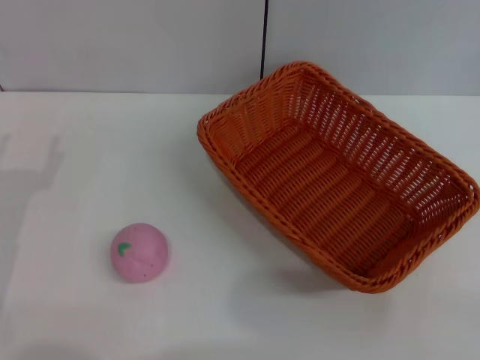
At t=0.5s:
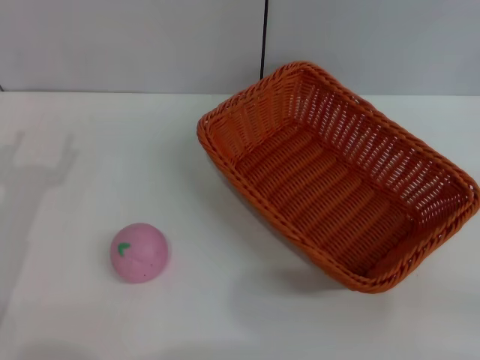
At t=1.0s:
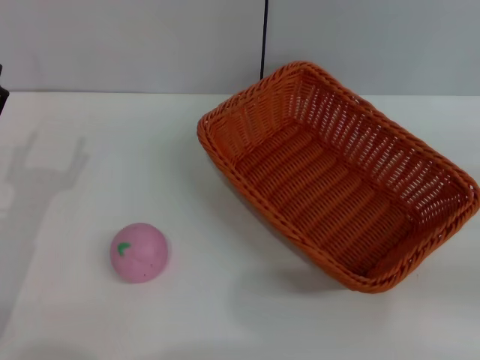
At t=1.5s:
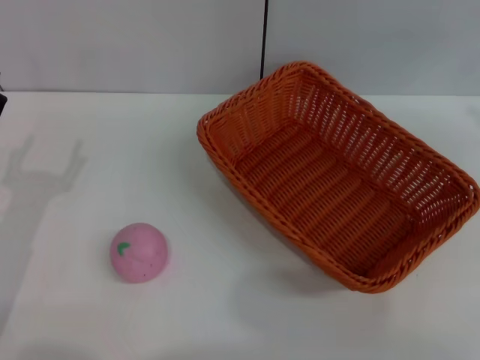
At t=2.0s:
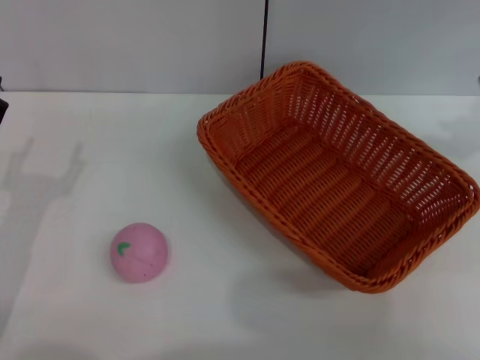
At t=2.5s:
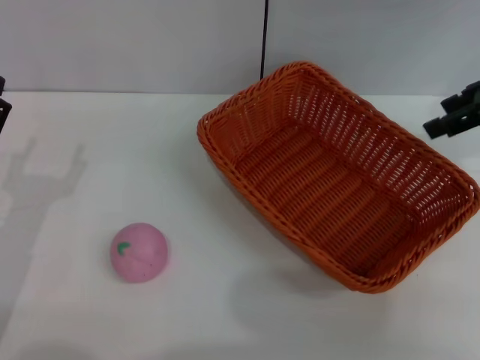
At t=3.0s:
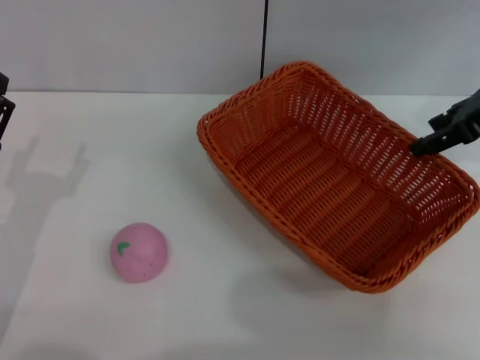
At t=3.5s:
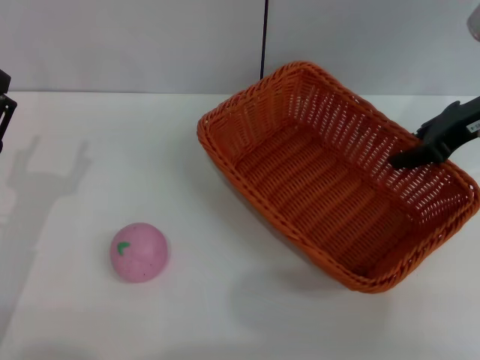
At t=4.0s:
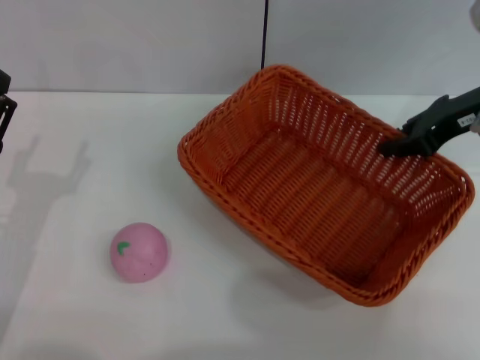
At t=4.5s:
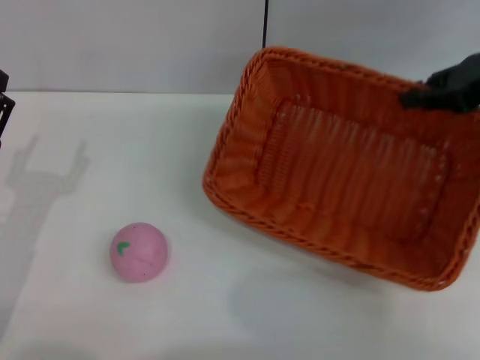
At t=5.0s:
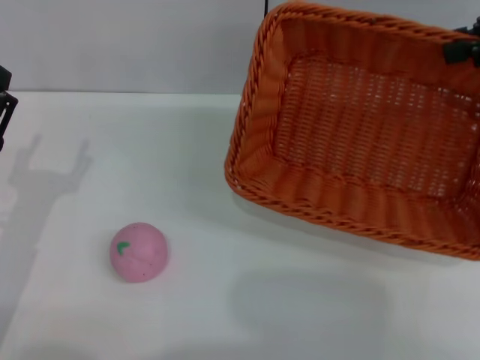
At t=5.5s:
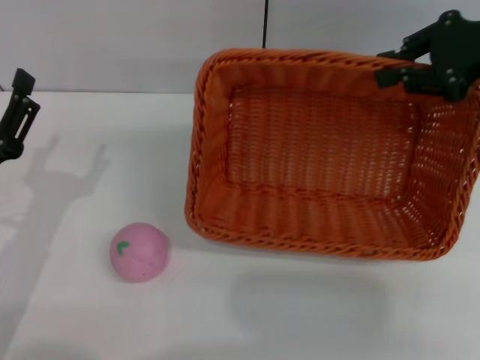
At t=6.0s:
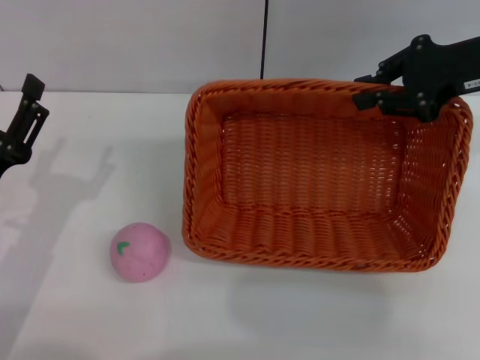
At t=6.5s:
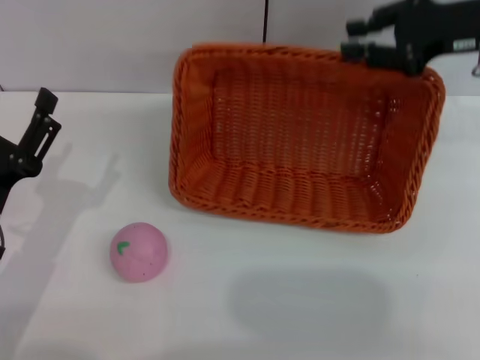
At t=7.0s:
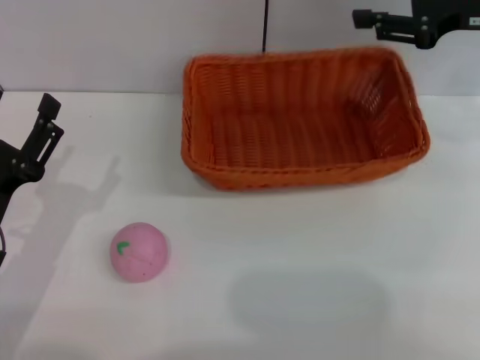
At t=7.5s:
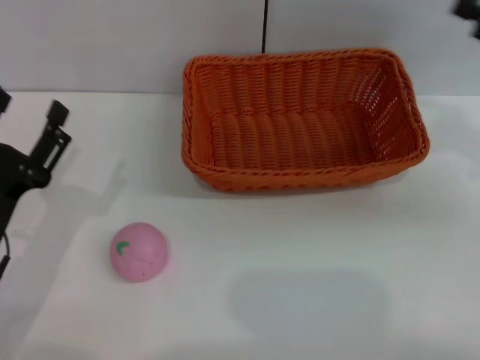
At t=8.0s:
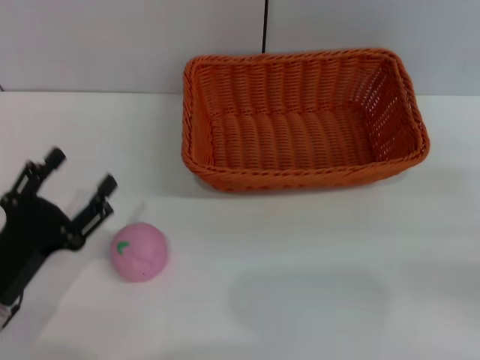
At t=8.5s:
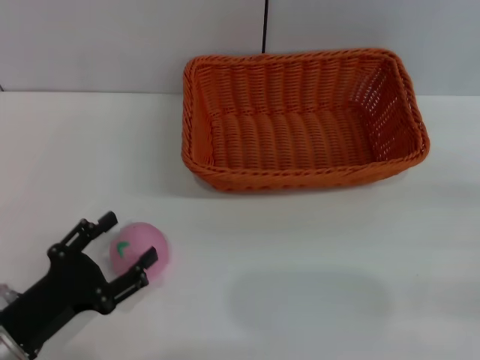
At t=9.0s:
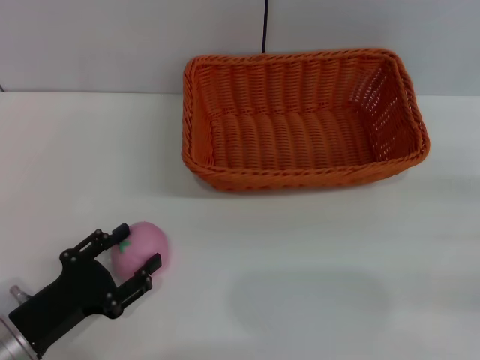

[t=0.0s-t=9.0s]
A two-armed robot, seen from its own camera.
Step, t=0.0s to t=4.5s: Pick up the light basket with the right gripper.
Step, t=5.0s to t=7.0s: Place the light basket in the center of view with the right gripper.
t=0.0s to t=2.0s: The right gripper moves upward and forward, some 30 cm.
t=2.0s to t=4.5s: The right gripper goes approximately 5 cm downward, and closes its fingers.
t=4.5s to t=7.0s: The right gripper opens up.
t=7.0s to t=9.0s: The right gripper heads backward, downward and to the right, covering some 25 cm. Meanwhile the left gripper moves approximately 5 cm.

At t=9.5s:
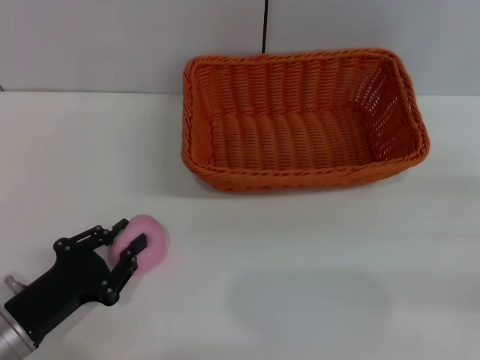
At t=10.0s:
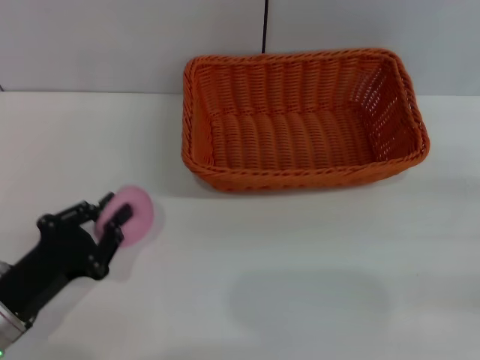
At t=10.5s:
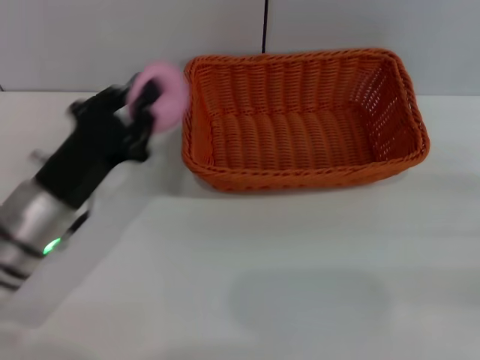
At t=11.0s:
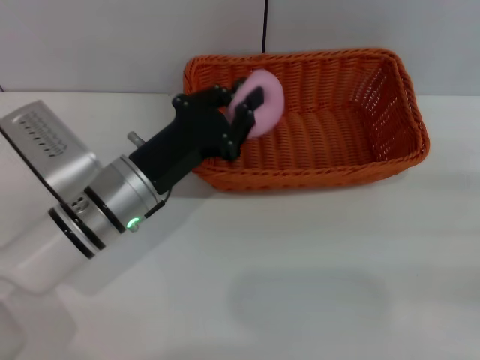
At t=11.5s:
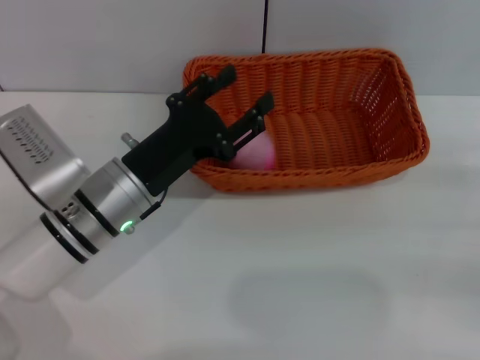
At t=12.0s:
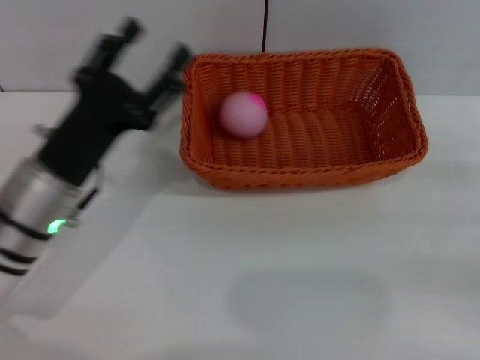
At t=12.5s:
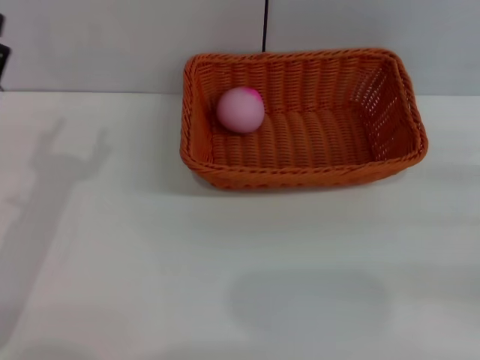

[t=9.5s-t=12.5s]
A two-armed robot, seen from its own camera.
Step, t=10.5s to t=11.5s: Place the peach into the basket with the left gripper.
t=9.5s to t=11.0s: The left gripper moves forward, to the right and upward, about 20 cm.
t=11.0s to t=12.5s: The left gripper heads to the left and backward, covering approximately 15 cm, and opens.

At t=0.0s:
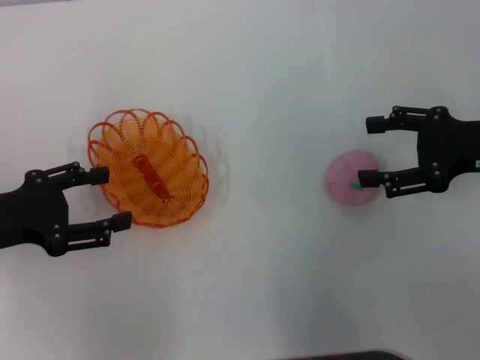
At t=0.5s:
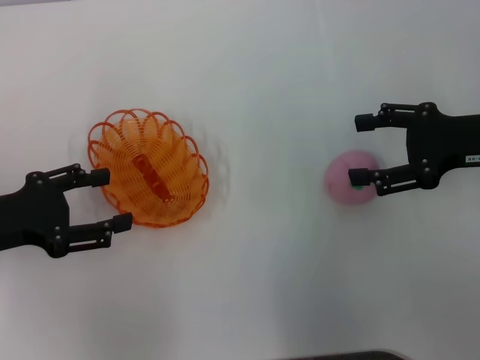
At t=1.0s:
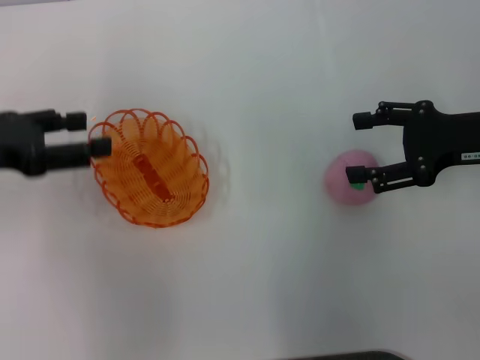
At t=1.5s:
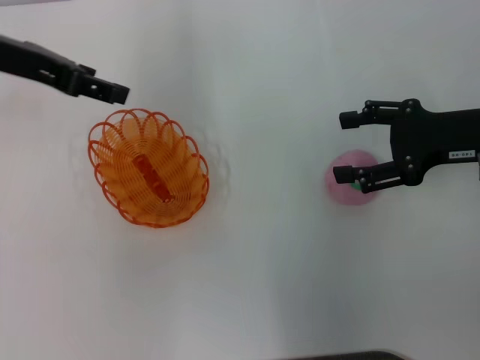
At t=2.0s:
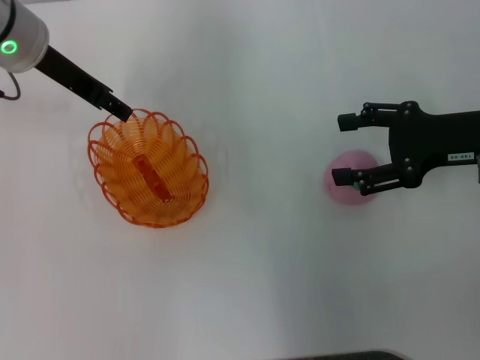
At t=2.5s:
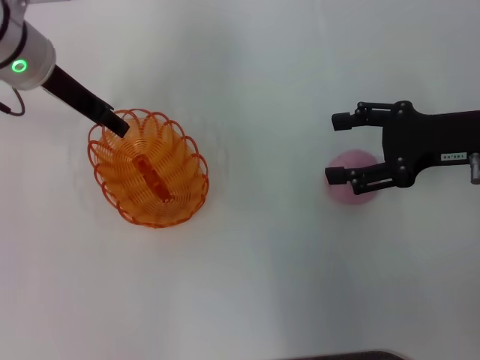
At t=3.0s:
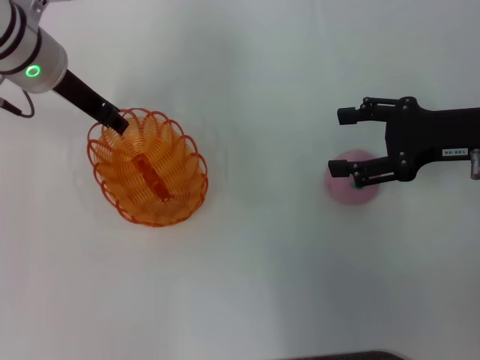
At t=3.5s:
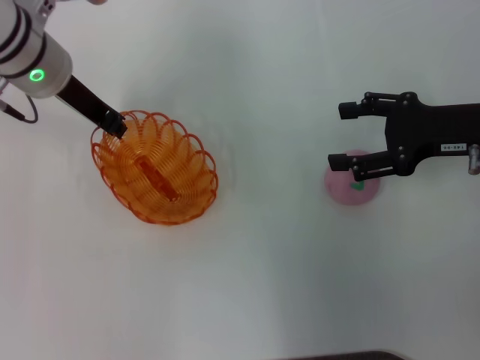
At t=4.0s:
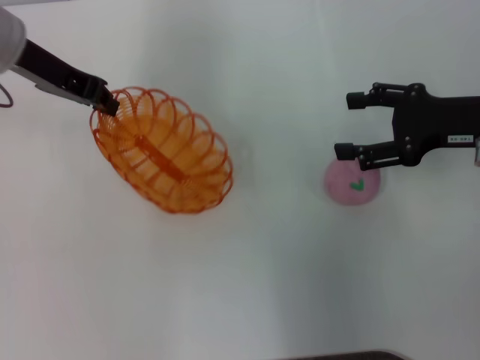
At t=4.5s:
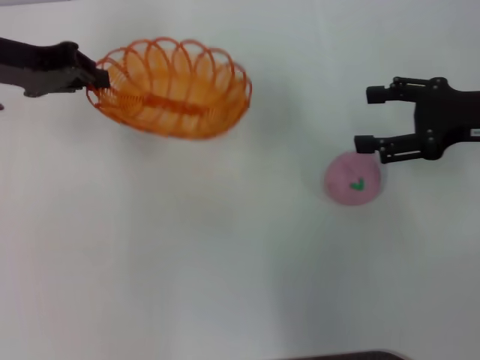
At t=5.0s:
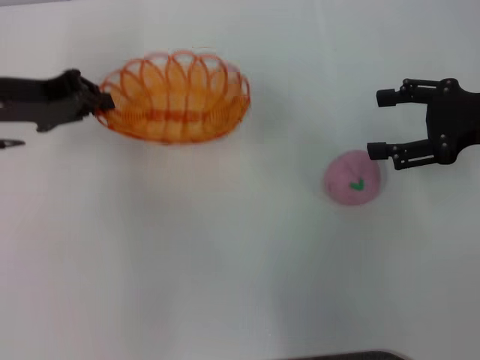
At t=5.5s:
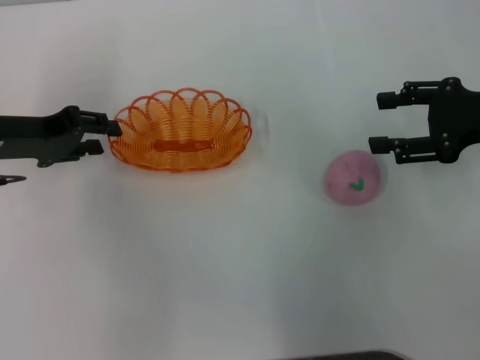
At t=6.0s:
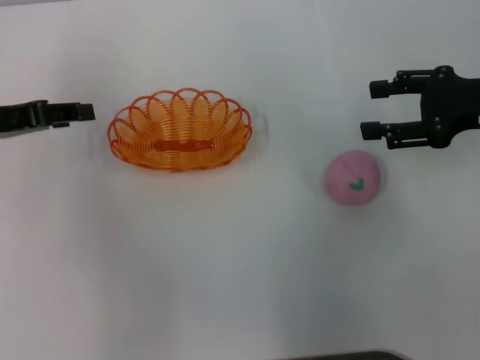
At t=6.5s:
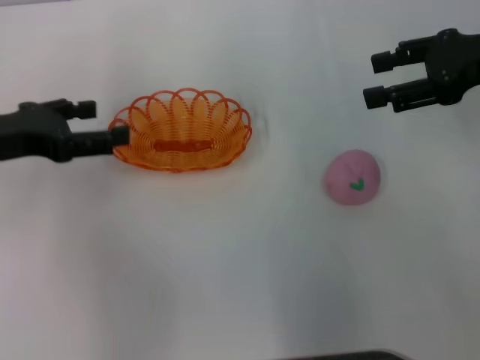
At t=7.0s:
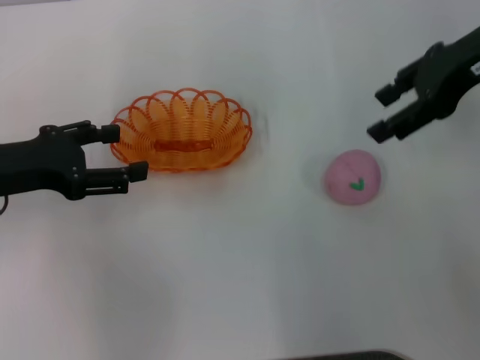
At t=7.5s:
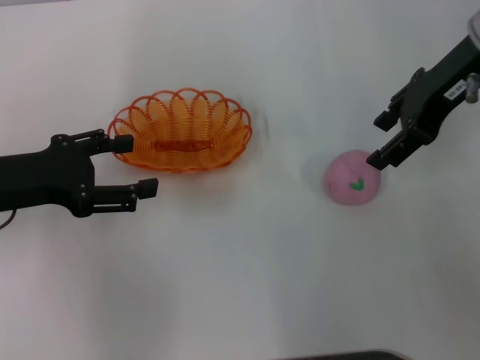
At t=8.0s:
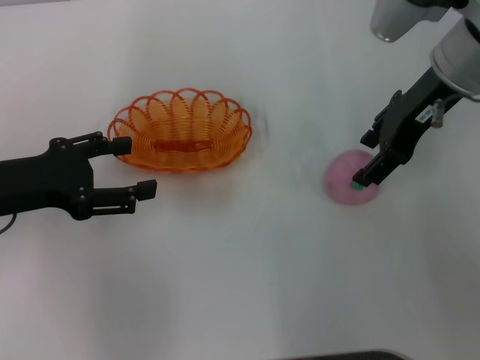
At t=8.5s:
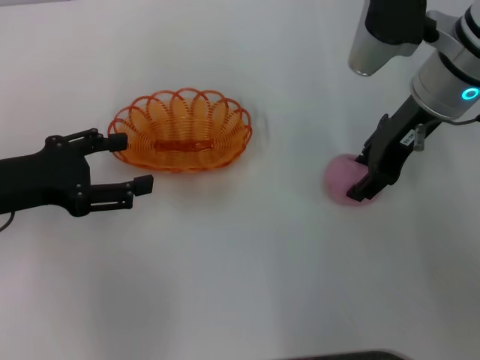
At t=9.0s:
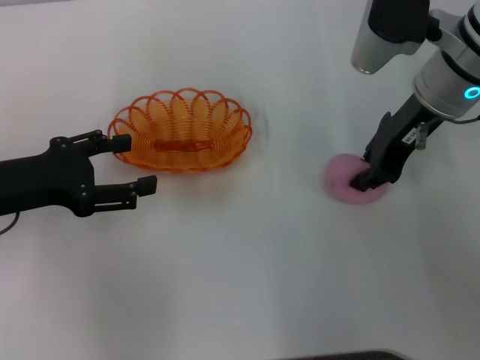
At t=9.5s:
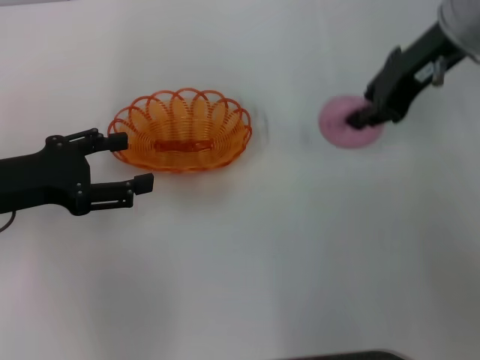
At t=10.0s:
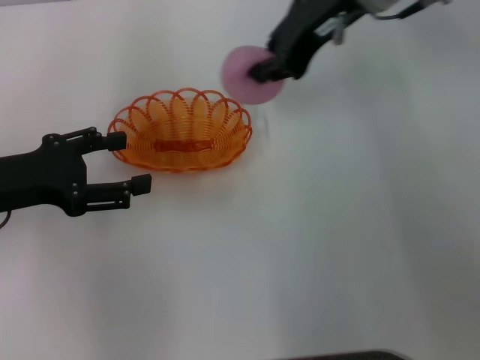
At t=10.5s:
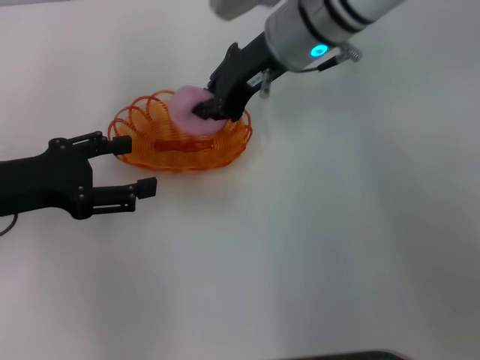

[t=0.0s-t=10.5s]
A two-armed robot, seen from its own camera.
Step, t=0.0s to t=4.0s: Pick up the basket with the left gripper.
Step, t=4.5s to t=7.0s: Place the basket in the center of view with the left gripper.
Step, t=7.5s to t=9.5s: Pick up the peach with the right gripper.
t=0.0s to t=2.0s: The left gripper heads forward, to the right and upward, covering about 20 cm.
t=2.0s to t=4.0s: The left gripper closes its fingers.
t=4.0s to t=6.5s: The left gripper is displaced backward, to the left and downward by approximately 15 cm, and opens its fingers; the right gripper moves upward, about 10 cm.
t=6.5s to t=8.5s: The right gripper shifts roughly 10 cm to the left.
t=8.5s to t=10.5s: The right gripper is displaced to the left by about 10 cm, and closes up.

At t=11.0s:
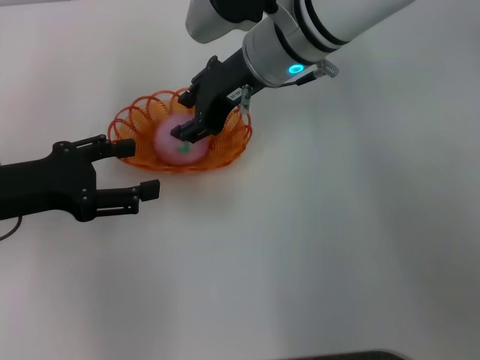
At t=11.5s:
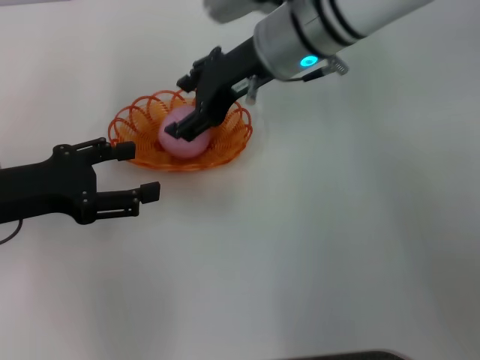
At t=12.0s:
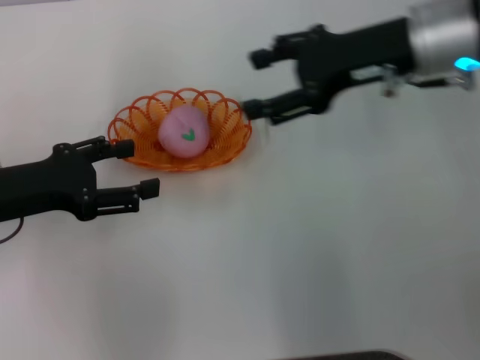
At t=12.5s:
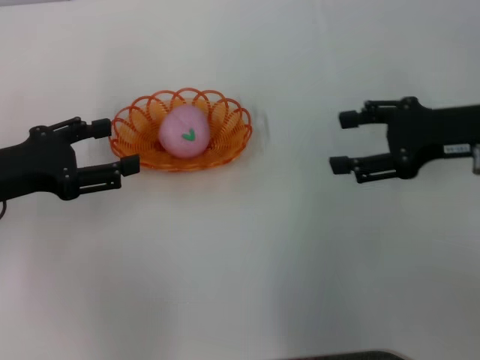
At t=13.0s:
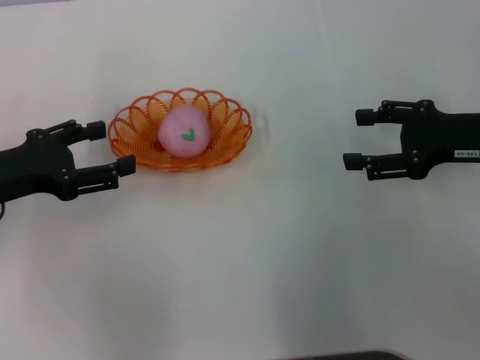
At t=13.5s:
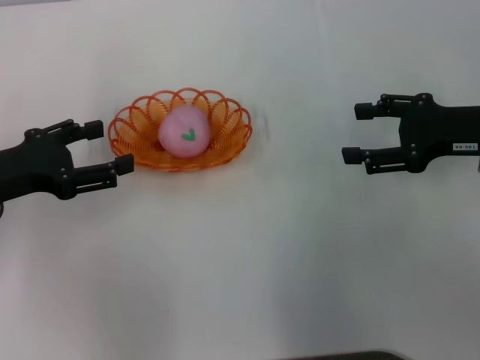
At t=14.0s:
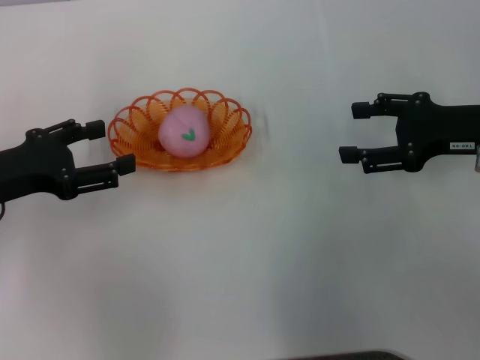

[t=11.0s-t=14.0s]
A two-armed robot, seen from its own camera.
t=11.0s to t=12.5s: The right gripper shifts approximately 25 cm to the right and backward, and opens its fingers.
t=12.5s to t=14.0s: The grippers move only a little.
